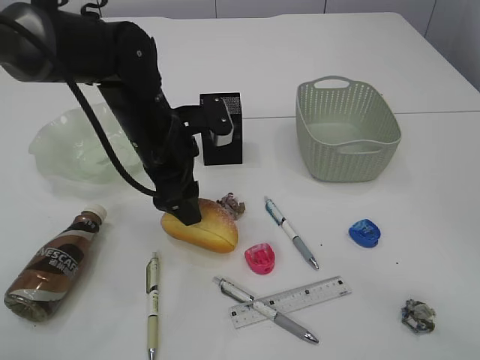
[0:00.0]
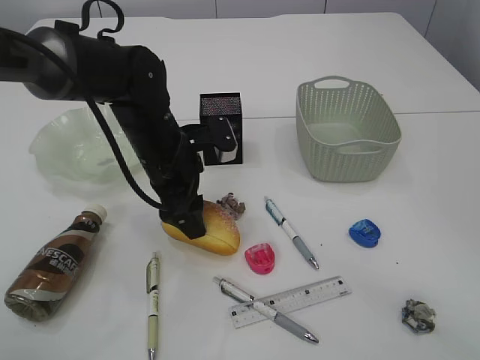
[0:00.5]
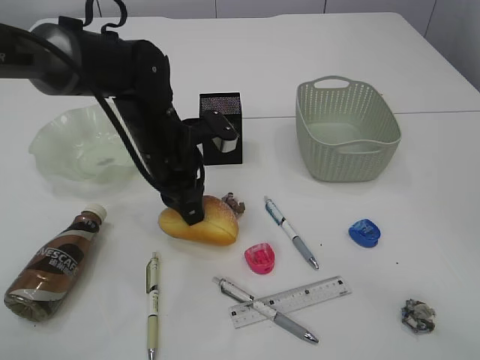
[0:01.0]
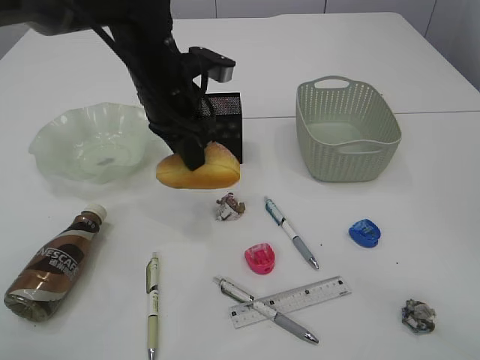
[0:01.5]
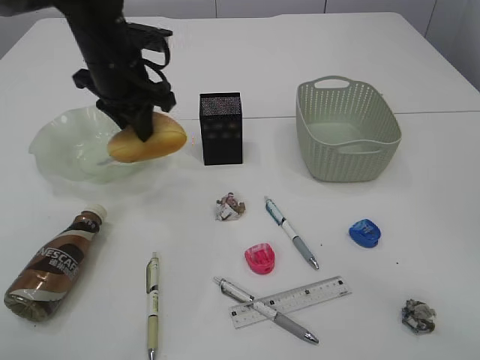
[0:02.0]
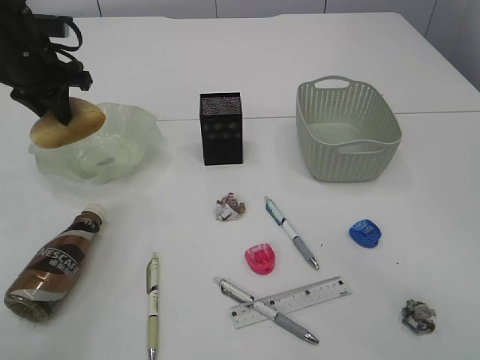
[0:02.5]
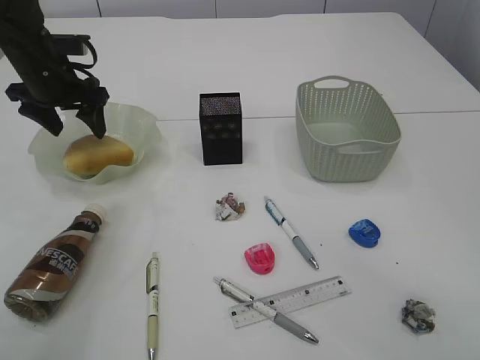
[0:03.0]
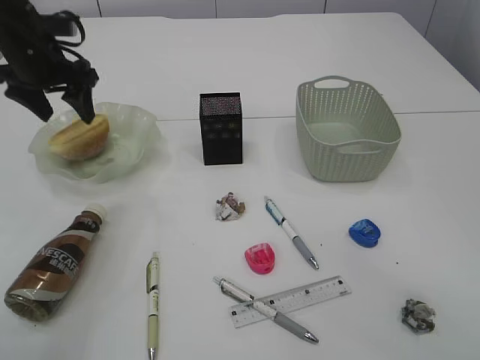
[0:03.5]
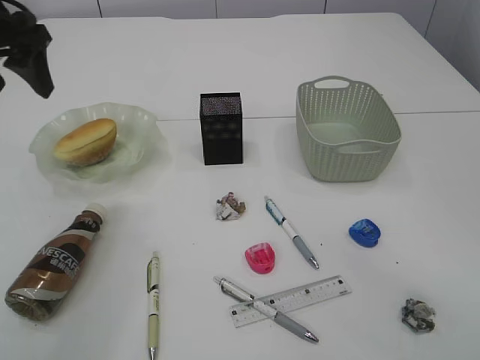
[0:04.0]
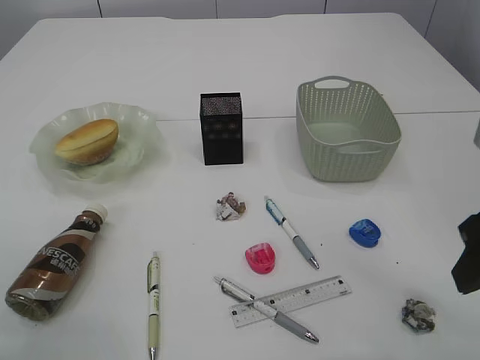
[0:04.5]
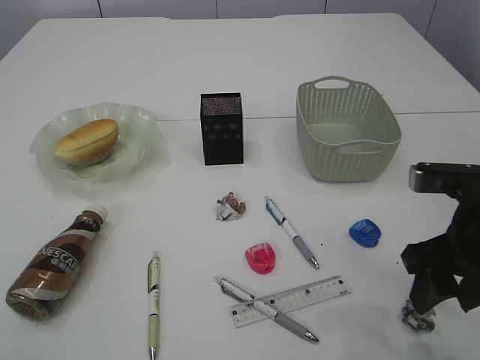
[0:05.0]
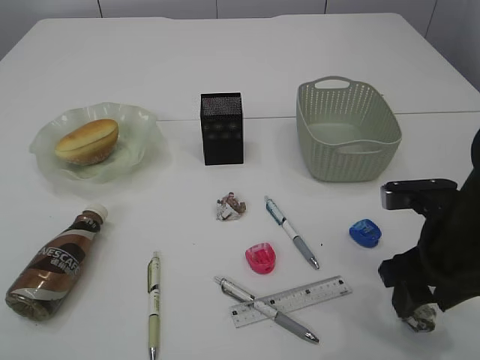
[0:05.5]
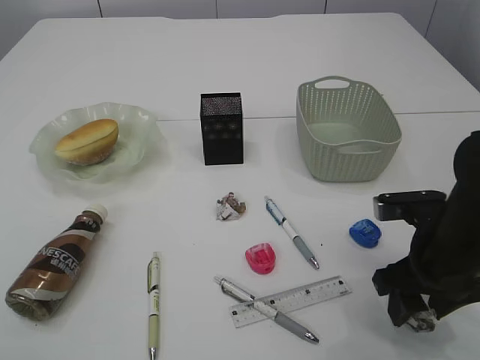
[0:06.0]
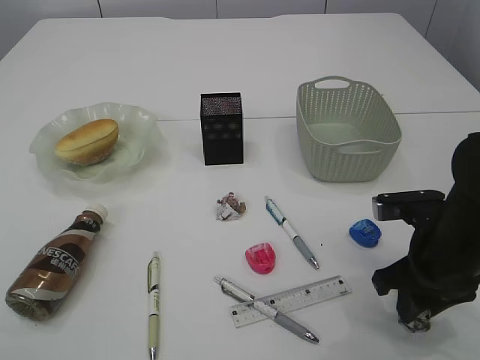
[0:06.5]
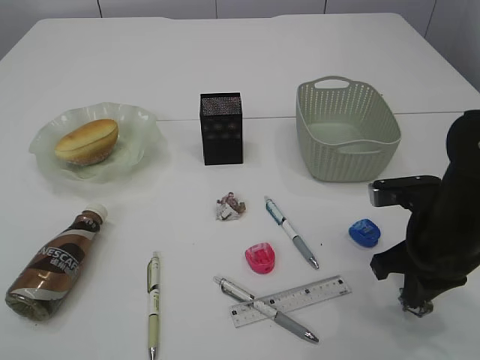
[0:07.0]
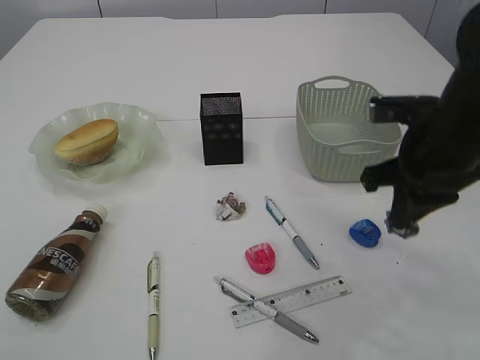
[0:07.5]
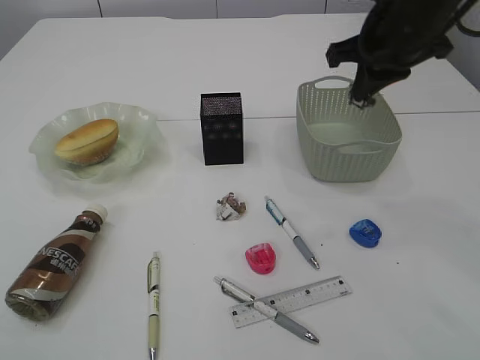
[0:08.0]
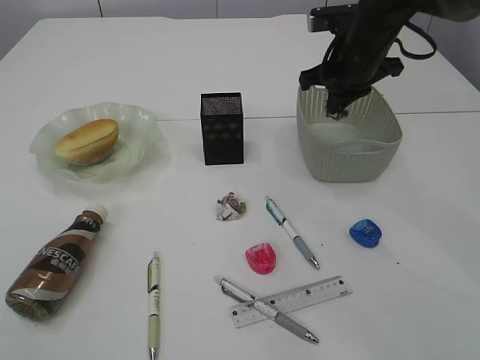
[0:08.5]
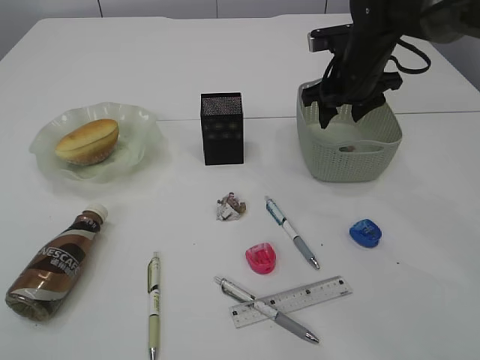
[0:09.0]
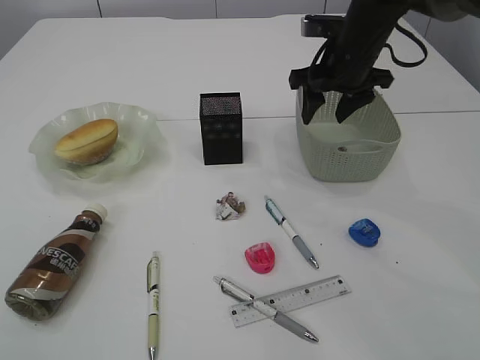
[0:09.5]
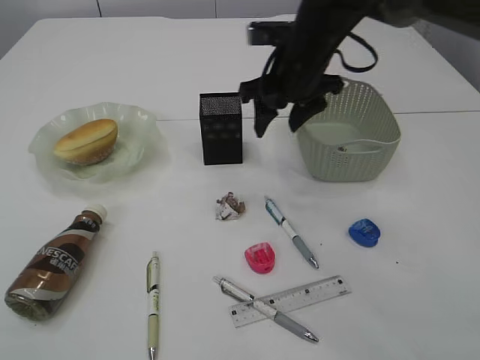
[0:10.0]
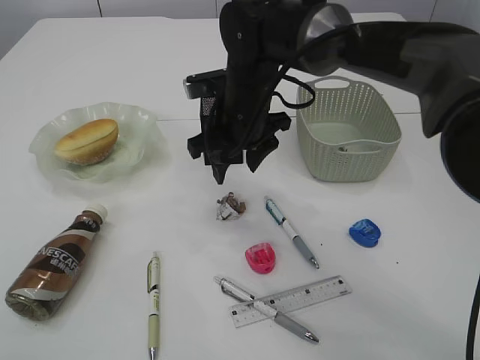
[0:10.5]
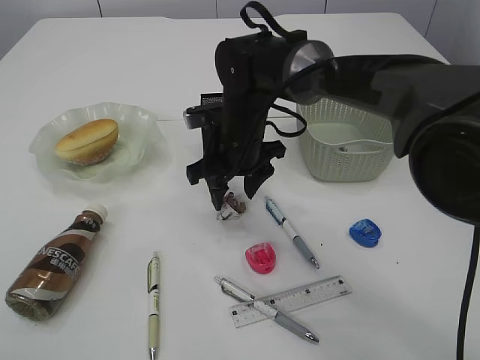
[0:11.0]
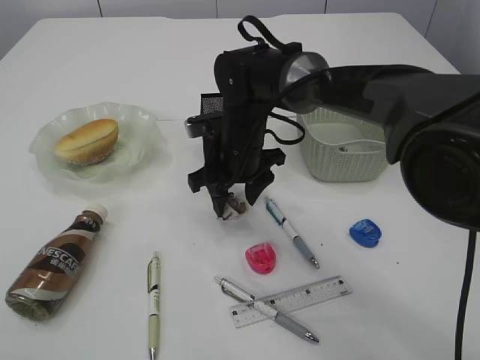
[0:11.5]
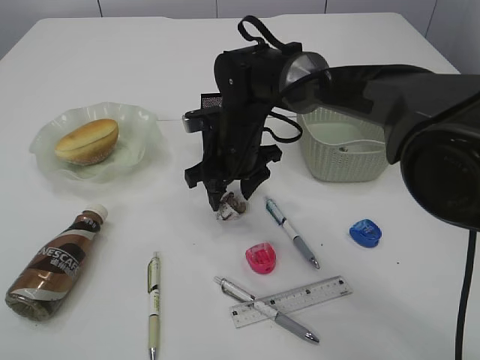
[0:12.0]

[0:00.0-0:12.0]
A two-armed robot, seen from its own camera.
Step, 0:01.5 to 0:03.5: place the bread in the plate.
Step, 0:04.0 to 0:07.5: Pick up the waste paper.
Step, 0:08.0 to 0:09.0: Place the waste paper in the basket.
0:00.0 to 0:02.0: The left gripper heads forward, upward and to the left, covering roughly 10 cm, and closes its fingers.
0:02.0 to 0:04.0: The left gripper moves to the left and upward, roughly 15 cm, and opens up.
0:04.0 to 0:06.0: The right gripper shifts approximately 20 cm downward and forward. The left gripper goes about 30 cm backward and upward.
0:06.0 to 0:08.0: The right gripper goes about 20 cm upward and forward, and closes up.
0:08.0 to 0:10.0: The right gripper heads to the left, downward and forward, covering approximately 10 cm, and opens up.
0:10.0 to 0:12.0: The right gripper shifts some 15 cm downward and to the left.

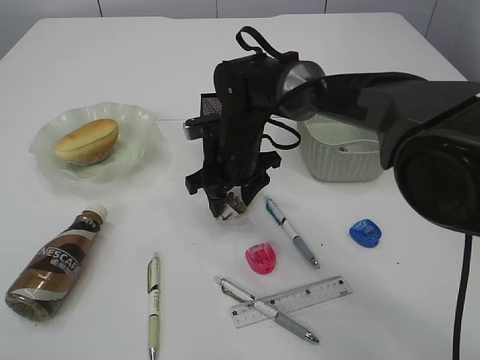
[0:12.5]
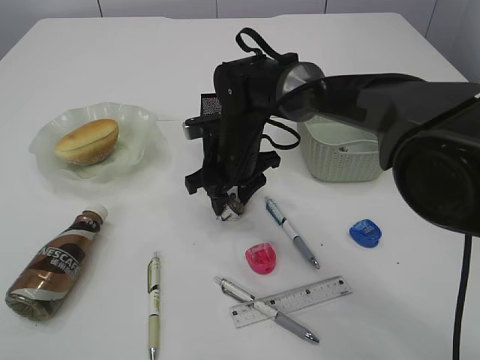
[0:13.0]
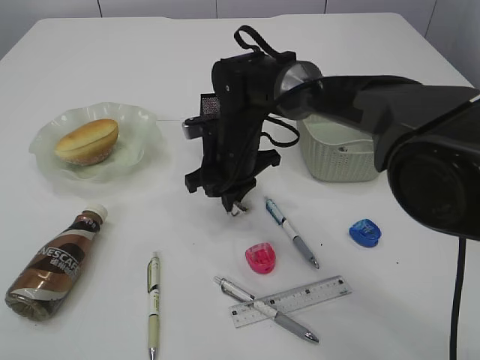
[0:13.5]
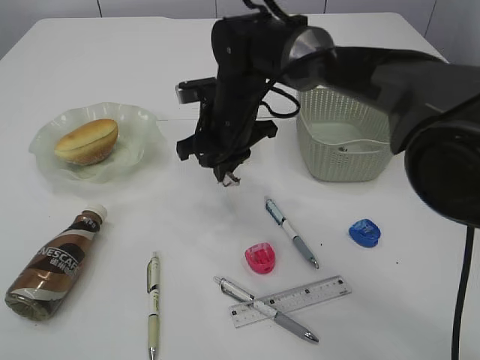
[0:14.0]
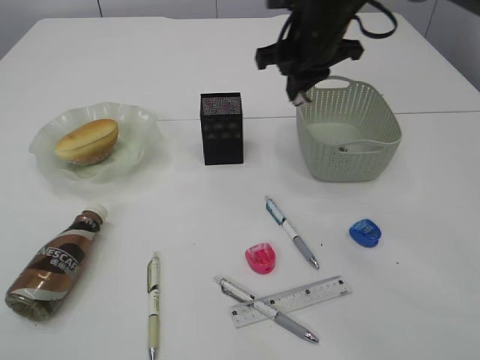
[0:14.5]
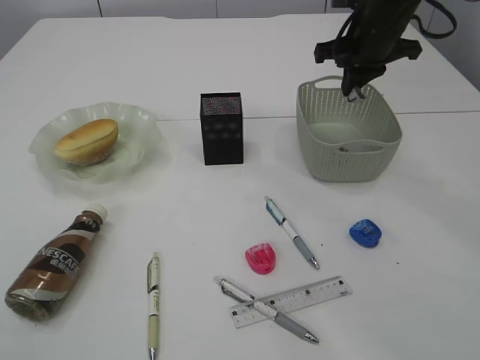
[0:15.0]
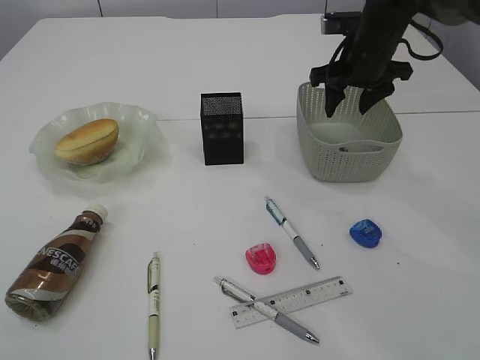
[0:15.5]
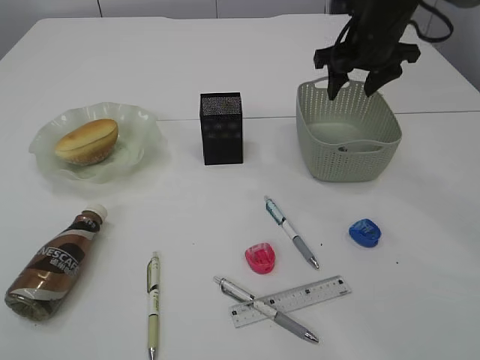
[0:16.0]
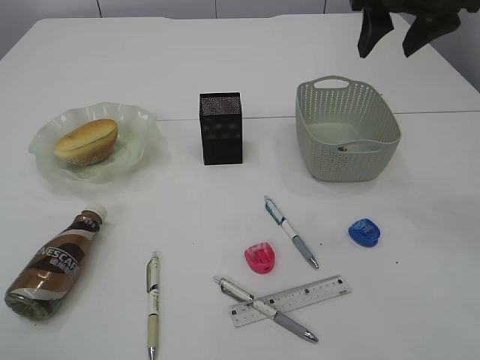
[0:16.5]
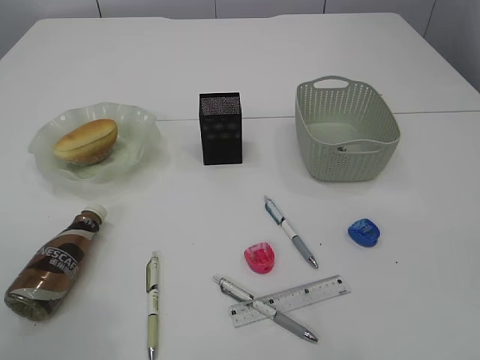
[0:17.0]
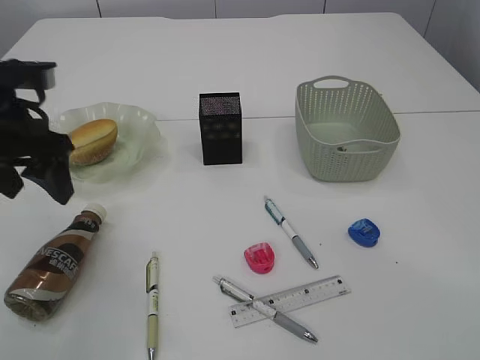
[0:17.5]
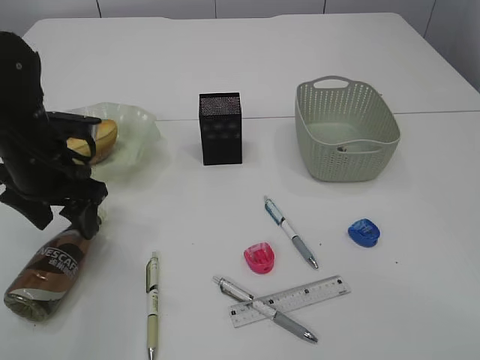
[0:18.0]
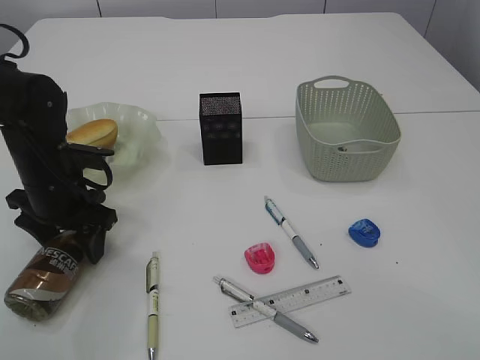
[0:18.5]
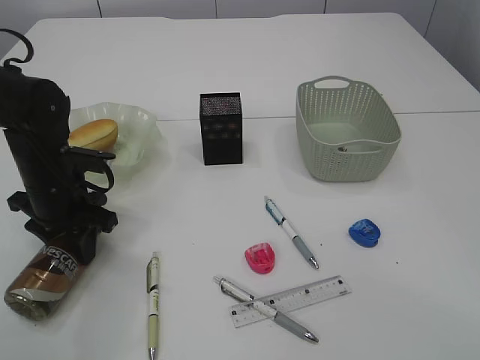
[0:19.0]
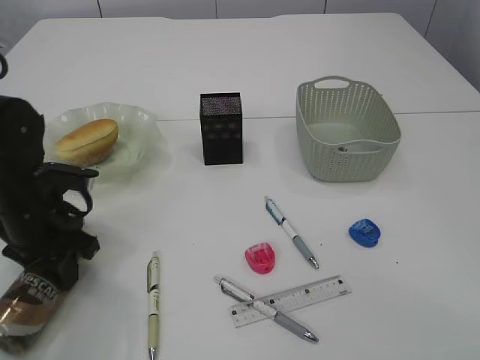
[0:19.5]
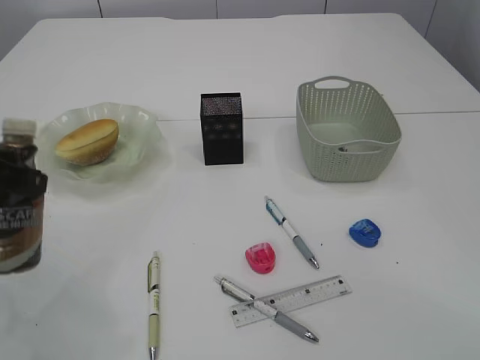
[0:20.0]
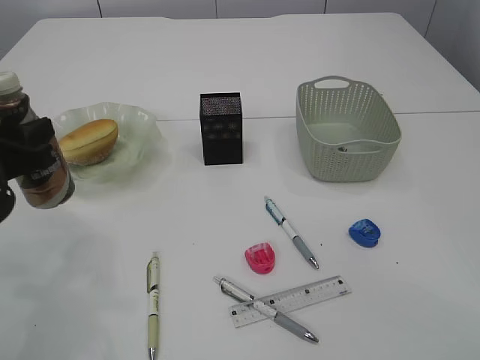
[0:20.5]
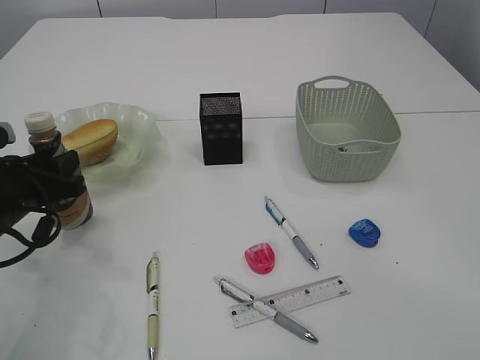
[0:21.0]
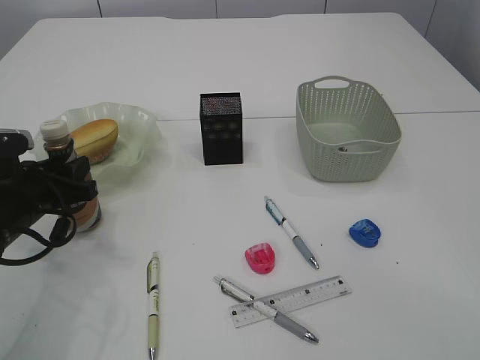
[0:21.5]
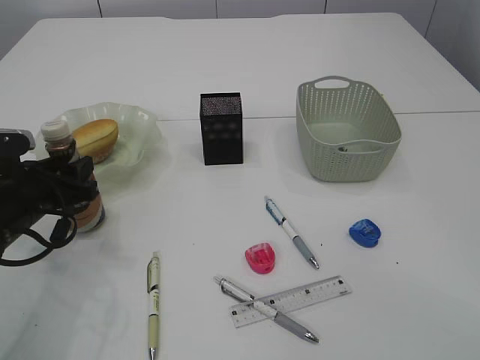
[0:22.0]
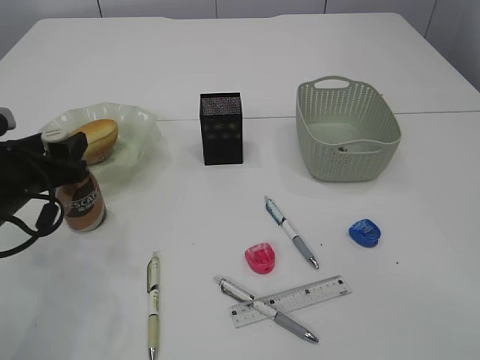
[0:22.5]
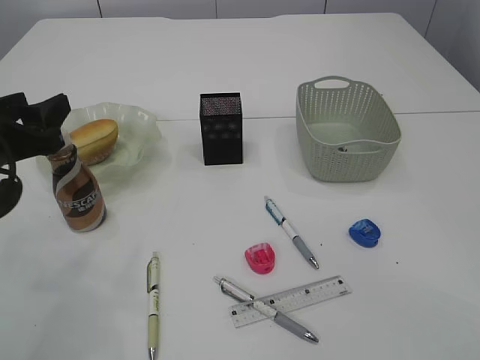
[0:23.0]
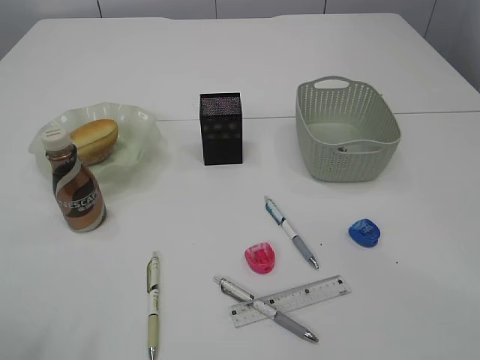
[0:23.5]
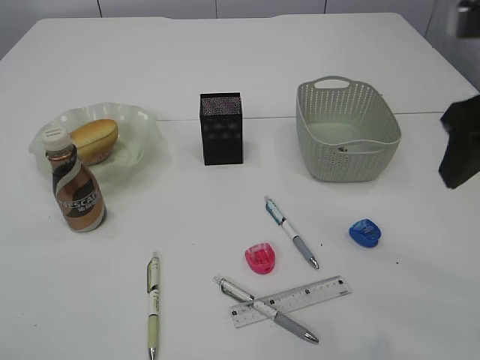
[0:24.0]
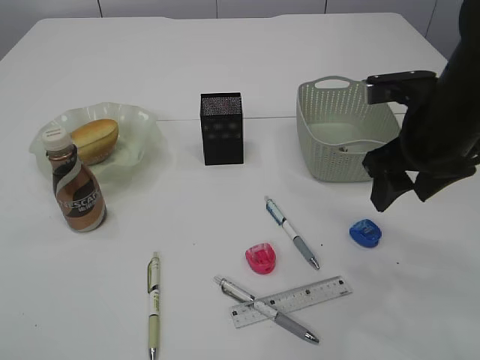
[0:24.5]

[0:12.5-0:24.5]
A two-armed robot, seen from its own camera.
Step, 0:14.5 to 0:16.0: Place the waste paper in the basket.
Step, 0:16.5 to 0:19.5: Pick up the bottle with the left arm.
Step, 0:20.0 to 0:23.0: Place the bottle.
0:12.5 to 0:14.5: The right gripper goes some 15 cm upward and to the right, and closes.
0:14.5 to 0:16.5: The left gripper travels forward by about 10 cm, while the right gripper is displaced to the right, upward and backward by approximately 15 cm, and opens up.
0:16.5 to 0:18.5: The left gripper goes approximately 40 cm downward and forward. Meanwhile the right gripper heads backward, covering approximately 30 cm.
0:18.5 to 0:20.5: The left gripper travels backward and upward by some 10 cm, and closes.
0:20.5 to 0:22.5: The left gripper shifts some 5 cm downward, and opens its fingers.
0:22.5 to 0:24.5: The right gripper shifts about 30 cm forward and downward; the left gripper heads backward and upward, covering about 25 cm.

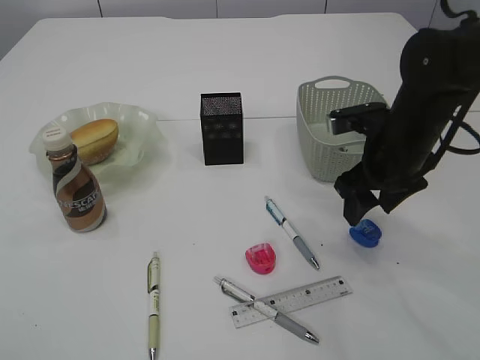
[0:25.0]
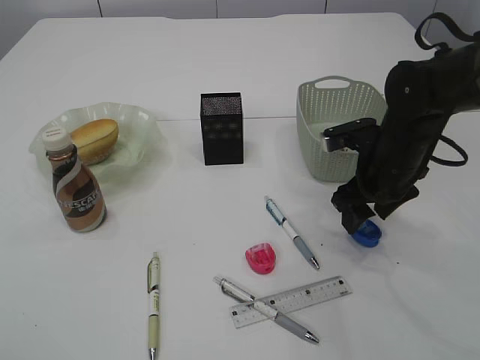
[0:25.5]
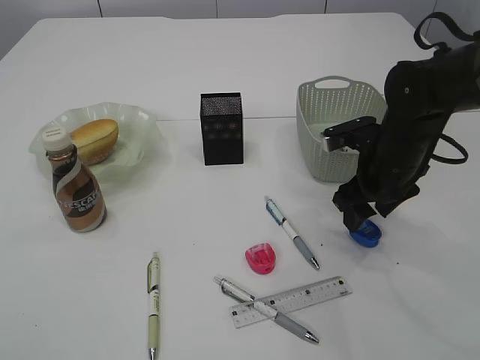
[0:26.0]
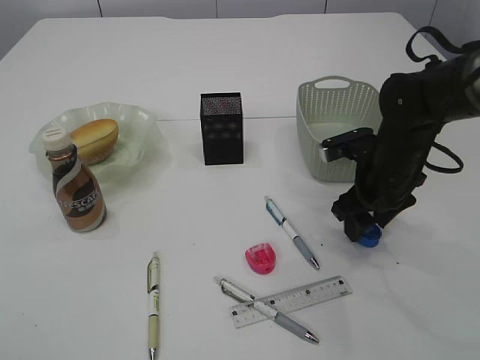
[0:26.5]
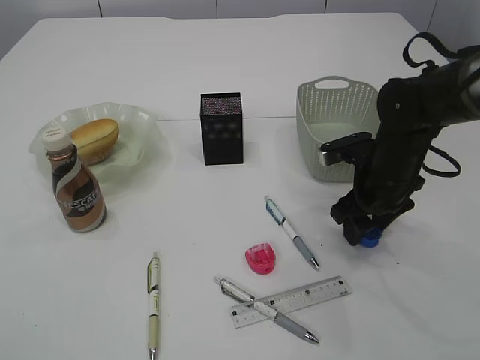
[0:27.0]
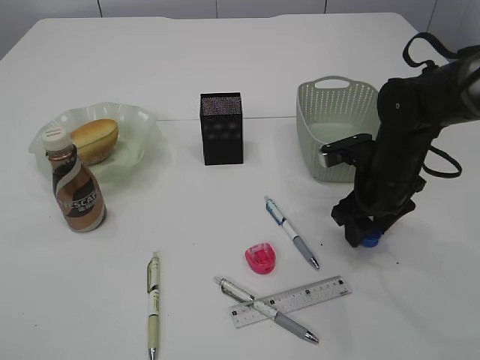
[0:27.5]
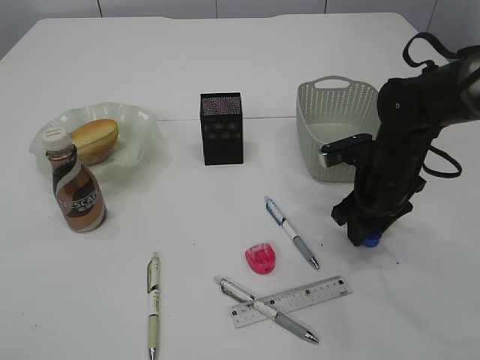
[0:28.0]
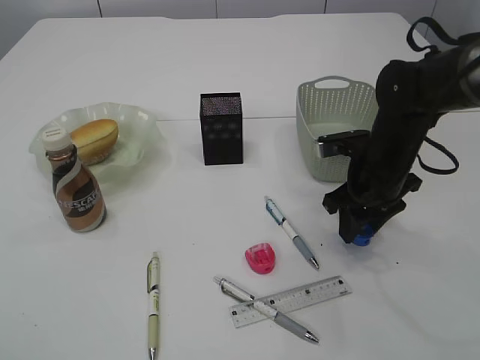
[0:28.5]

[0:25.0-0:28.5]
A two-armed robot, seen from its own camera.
0:25.0 to 0:27.0: The right gripper heads downward, covering some 5 cm.
0:27.0 to 0:28.5: The grippers stay close to where they were, moving slightly.
